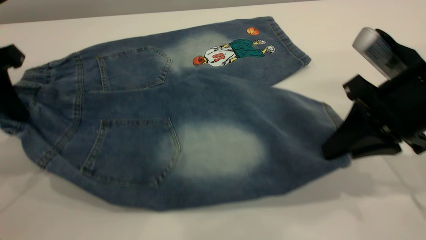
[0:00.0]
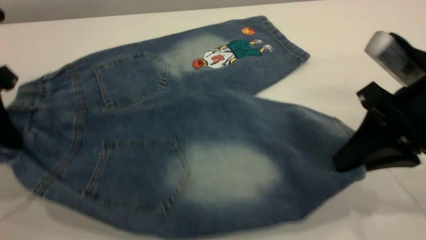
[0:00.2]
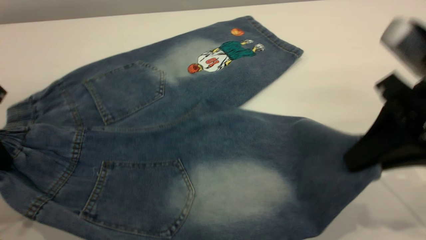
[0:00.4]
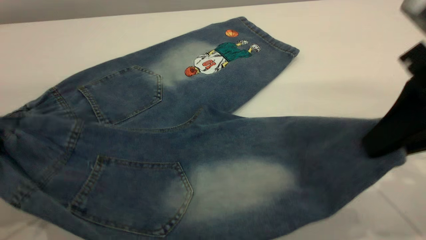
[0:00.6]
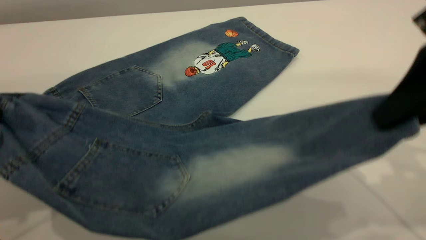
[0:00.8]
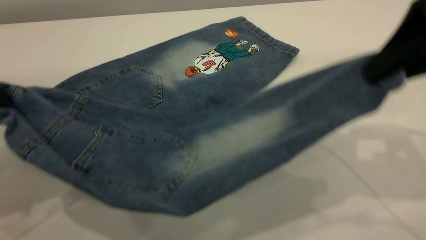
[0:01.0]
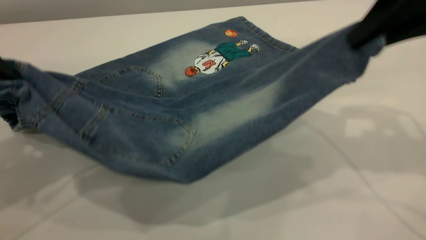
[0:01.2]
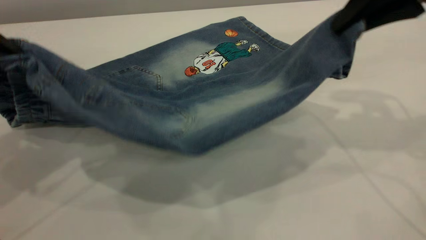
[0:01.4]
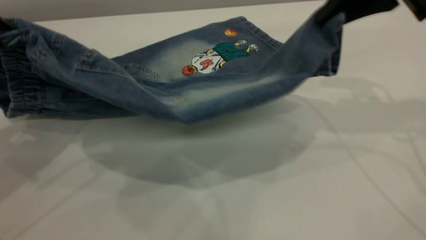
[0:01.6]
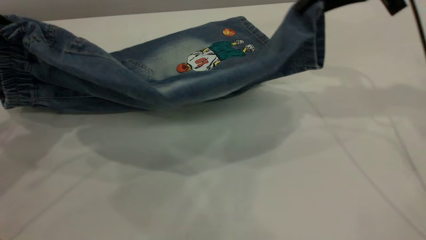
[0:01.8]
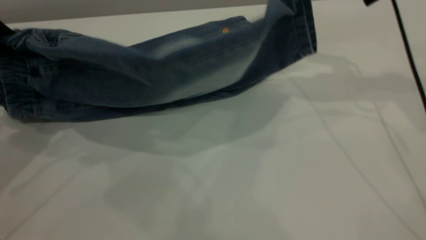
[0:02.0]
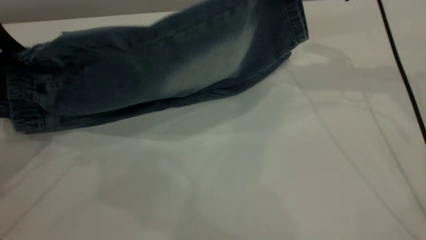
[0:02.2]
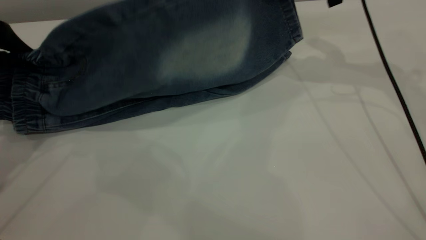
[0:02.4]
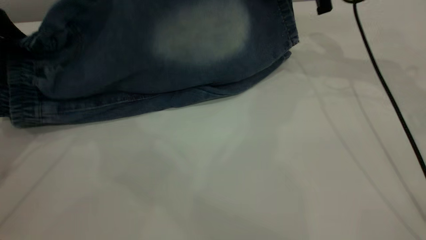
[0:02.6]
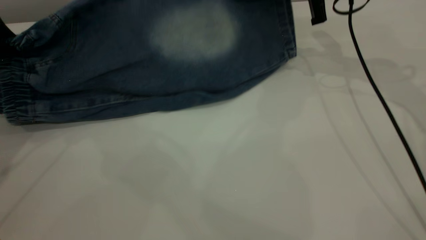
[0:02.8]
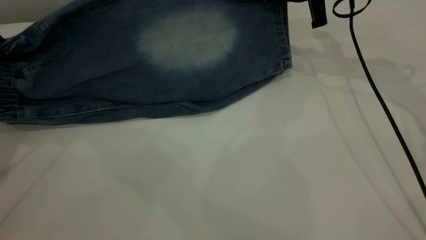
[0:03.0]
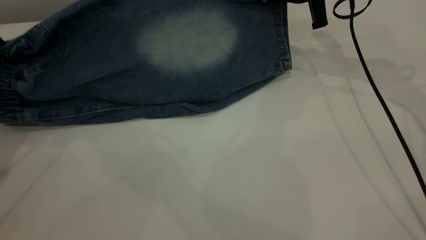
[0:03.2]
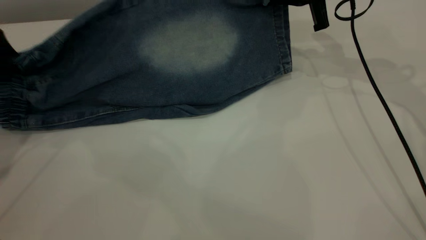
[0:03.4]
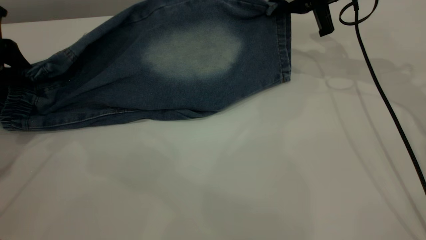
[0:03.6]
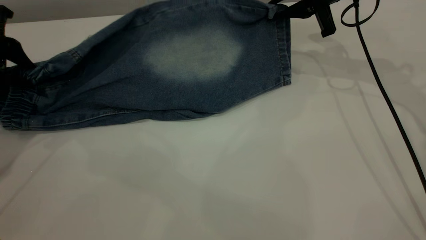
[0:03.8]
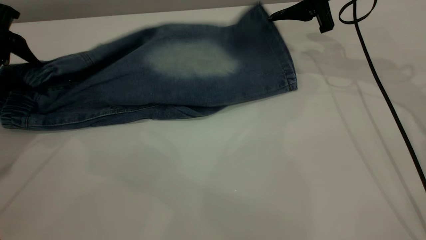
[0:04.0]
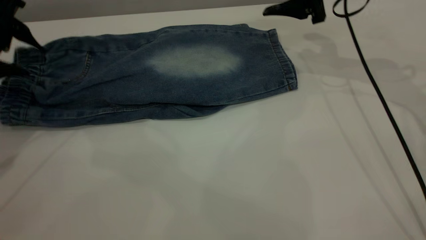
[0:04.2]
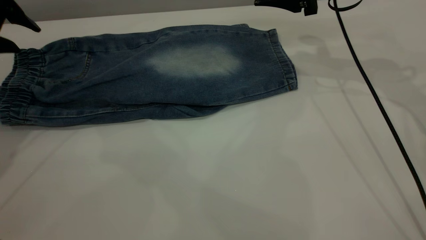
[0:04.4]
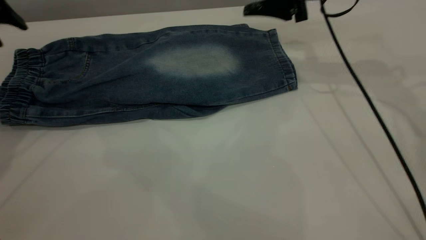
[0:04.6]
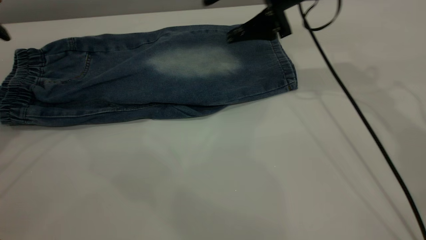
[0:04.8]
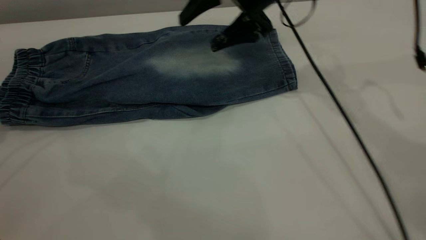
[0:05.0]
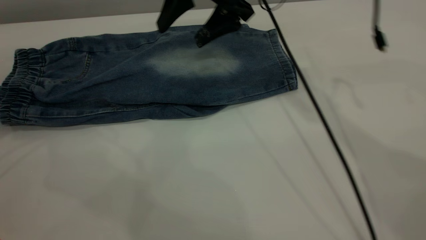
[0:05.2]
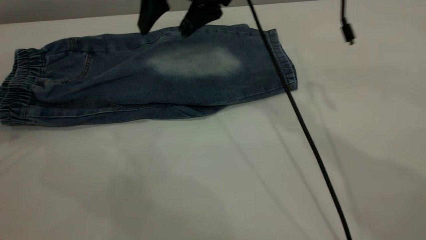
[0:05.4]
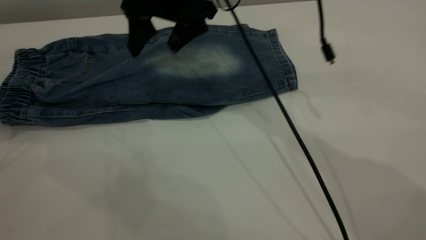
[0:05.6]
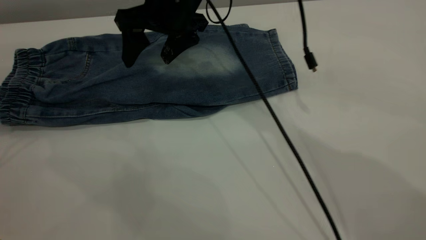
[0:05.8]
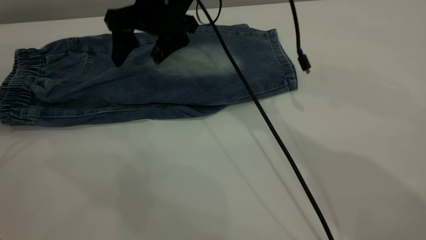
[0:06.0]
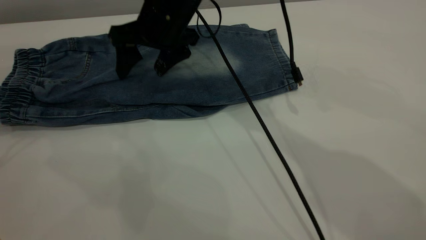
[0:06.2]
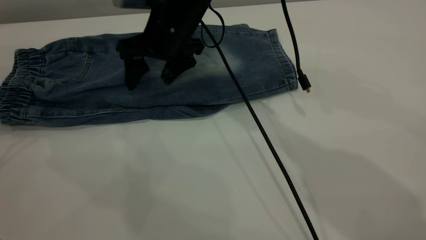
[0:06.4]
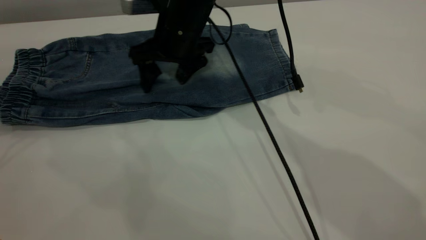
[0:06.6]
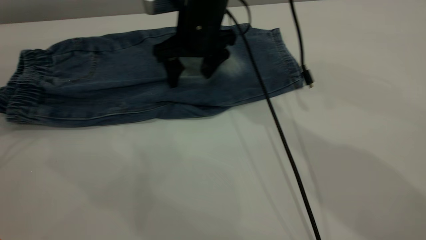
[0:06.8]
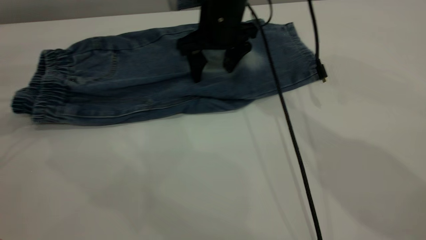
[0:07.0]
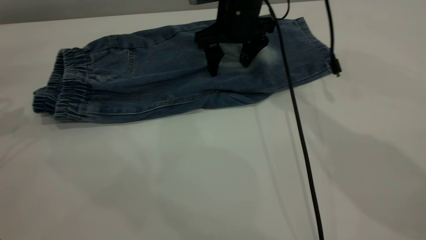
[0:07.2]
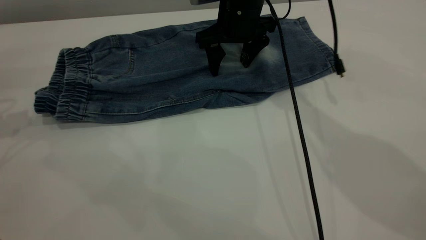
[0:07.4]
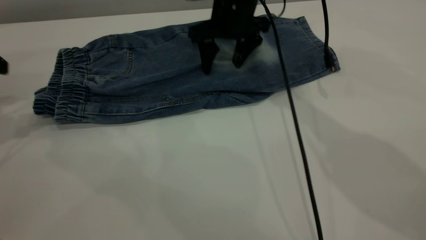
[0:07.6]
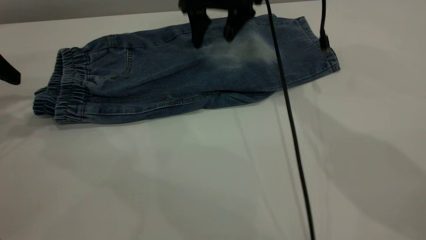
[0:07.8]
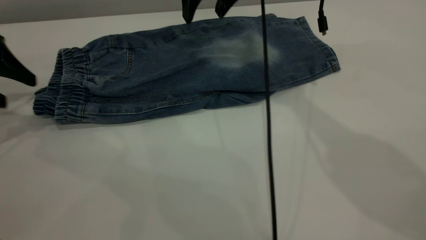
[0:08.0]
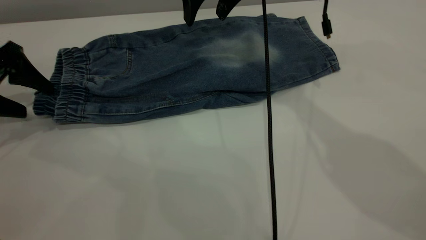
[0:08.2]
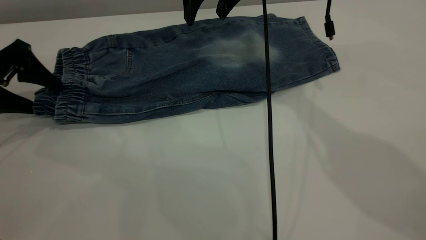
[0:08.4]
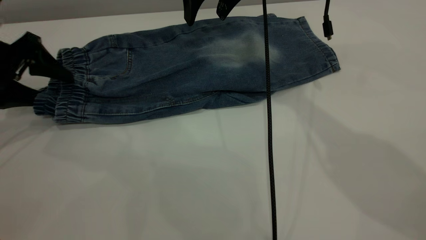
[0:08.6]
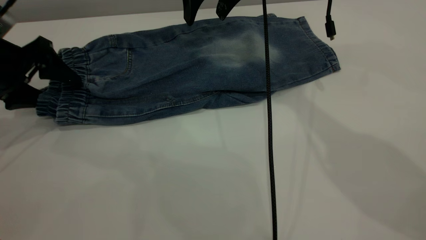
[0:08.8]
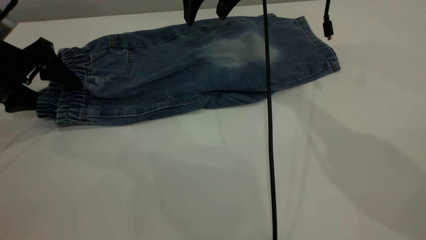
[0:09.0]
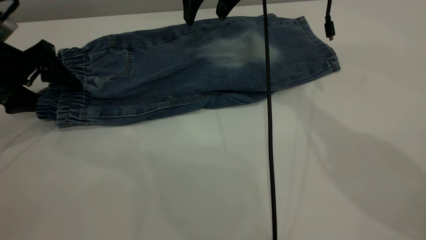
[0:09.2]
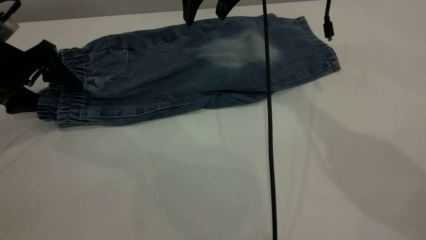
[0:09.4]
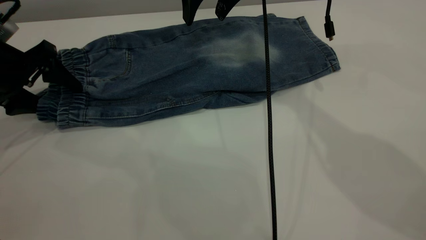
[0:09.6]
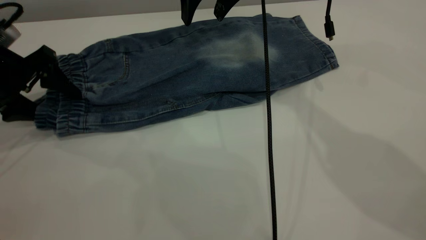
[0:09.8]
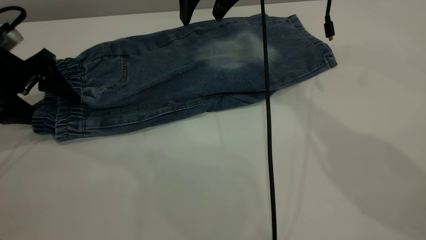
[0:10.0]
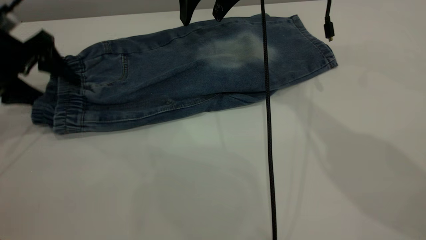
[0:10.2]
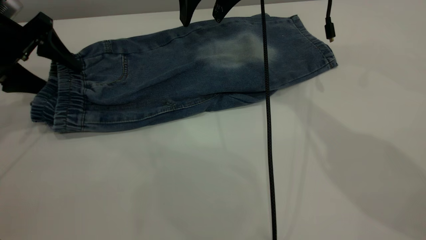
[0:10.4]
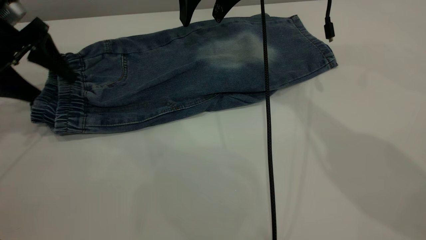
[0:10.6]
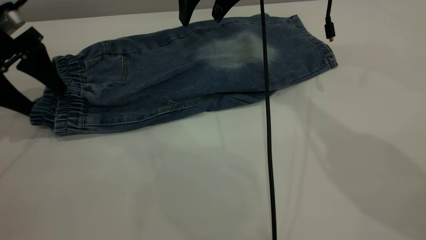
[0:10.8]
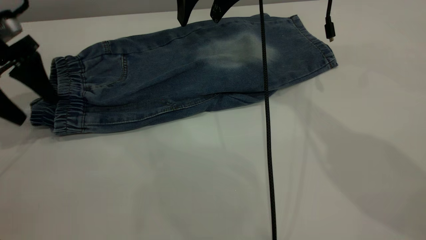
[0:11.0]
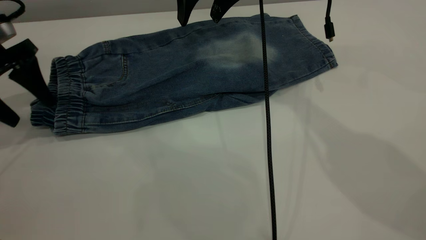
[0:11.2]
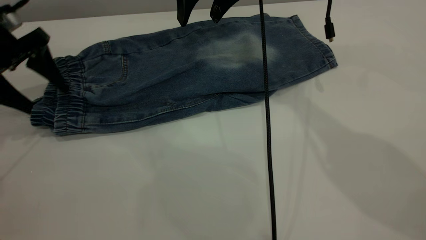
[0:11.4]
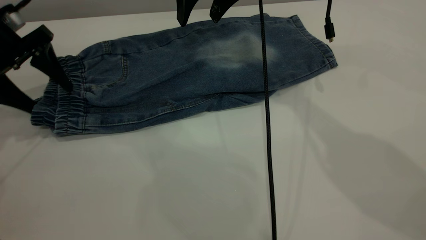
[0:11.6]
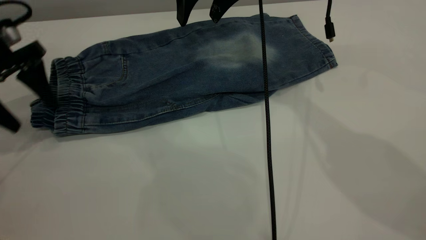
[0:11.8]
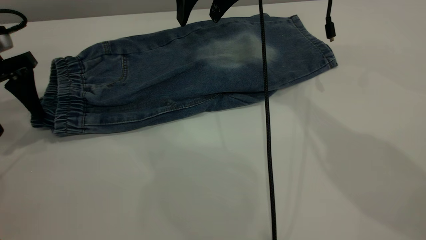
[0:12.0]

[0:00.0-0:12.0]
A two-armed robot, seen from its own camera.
Step, 0:00.0 to 0:04.6: Fold the bottom of the pants upward.
0:00.0 to 0:01.6: The right gripper heads upward and forward, covering approximately 15 cm. The left gripper moves upward, roughly 5 cm.
0:01.6 to 0:03.0: The left gripper heads forward and downward, covering approximately 10 cm. The right gripper heads forward and downward, covering approximately 15 cm.
0:03.0 to 0:04.4: The left gripper opens, while the right gripper opens.
0:04.4 to 0:06.0: The right gripper shifts roughly 25 cm to the left; the left gripper is displaced to the left by roughly 5 cm.
0:06.0 to 0:07.6: The right gripper moves to the right, some 10 cm.
0:07.6 to 0:09.0: The right gripper goes roughly 5 cm upward. The left gripper heads downward and to the right, covering approximately 10 cm.
0:09.0 to 0:10.4: The grippers move only a little.

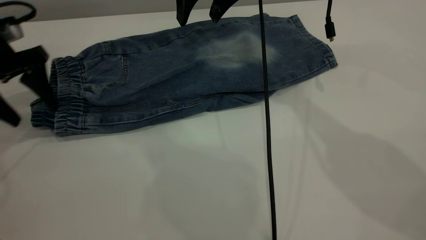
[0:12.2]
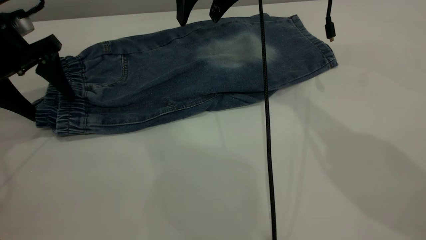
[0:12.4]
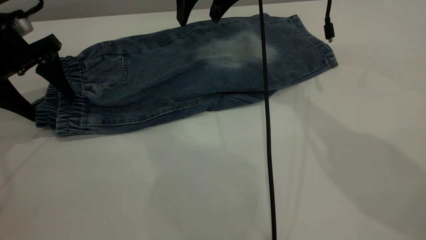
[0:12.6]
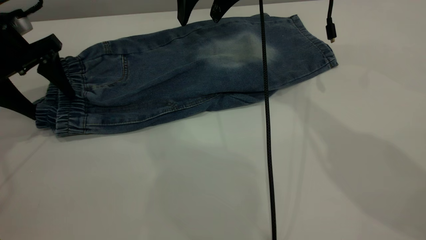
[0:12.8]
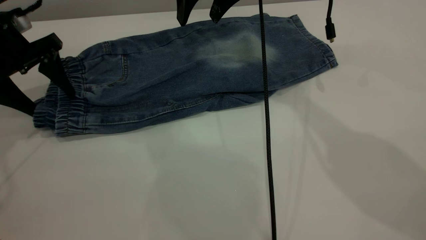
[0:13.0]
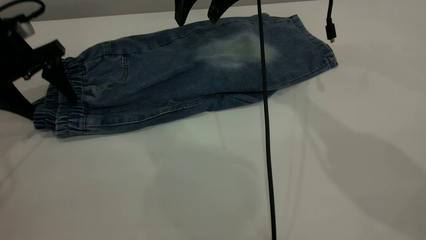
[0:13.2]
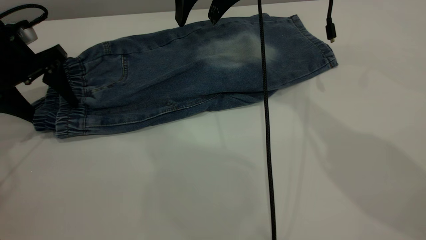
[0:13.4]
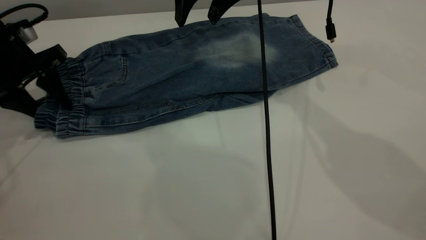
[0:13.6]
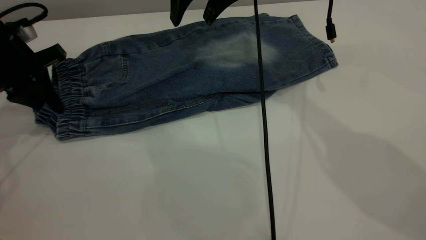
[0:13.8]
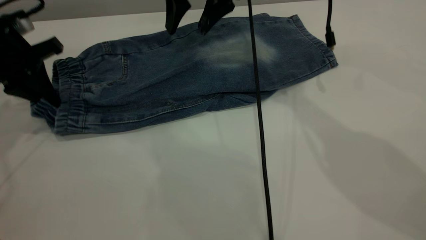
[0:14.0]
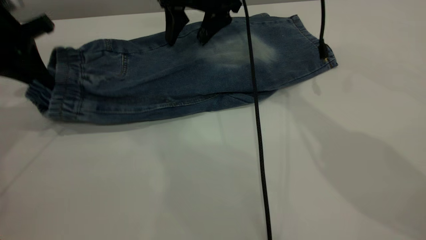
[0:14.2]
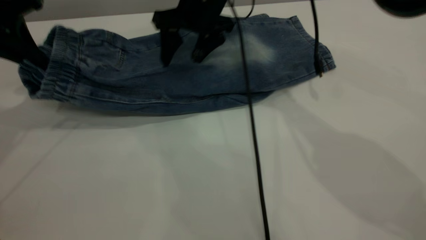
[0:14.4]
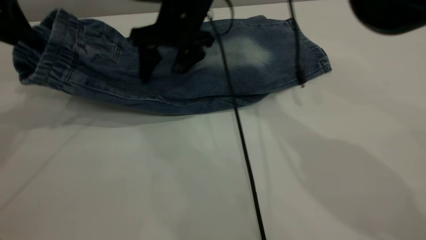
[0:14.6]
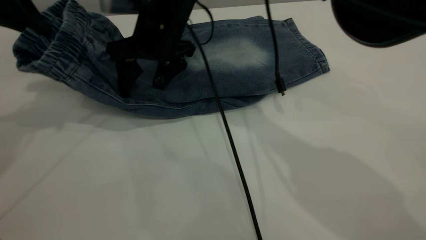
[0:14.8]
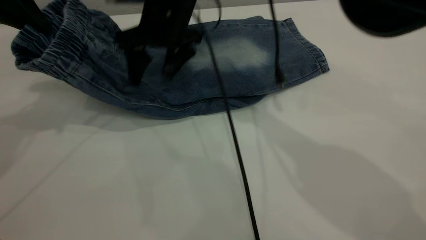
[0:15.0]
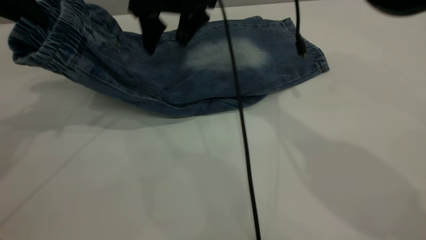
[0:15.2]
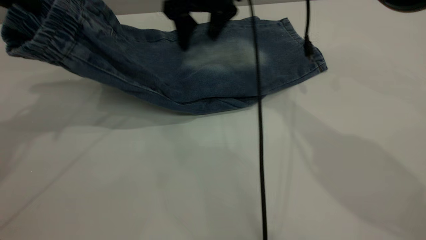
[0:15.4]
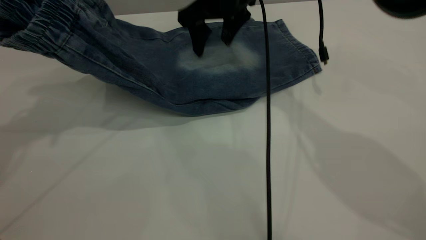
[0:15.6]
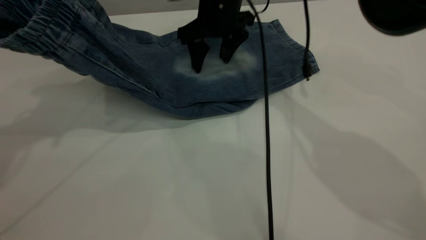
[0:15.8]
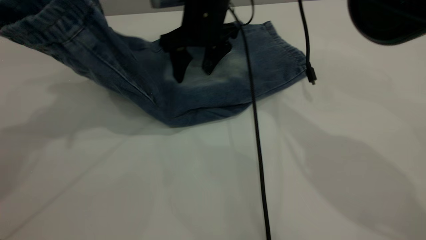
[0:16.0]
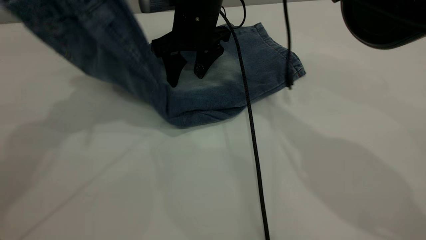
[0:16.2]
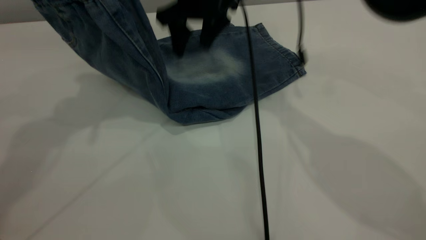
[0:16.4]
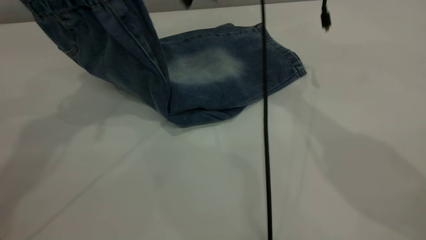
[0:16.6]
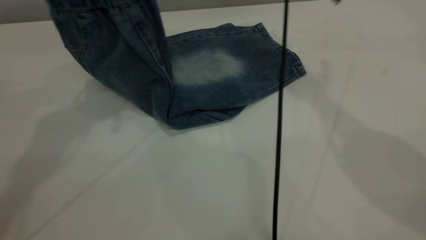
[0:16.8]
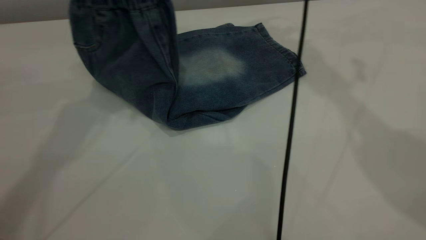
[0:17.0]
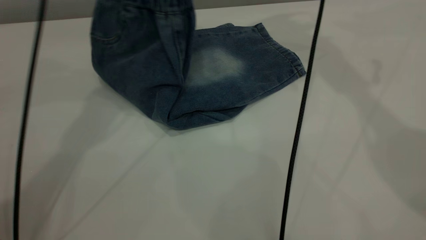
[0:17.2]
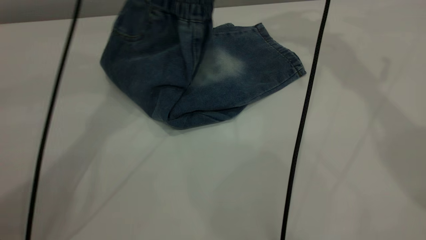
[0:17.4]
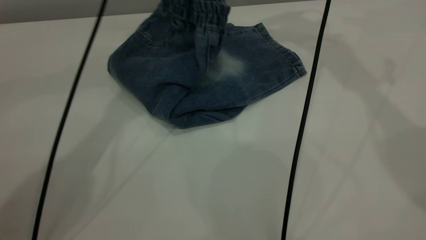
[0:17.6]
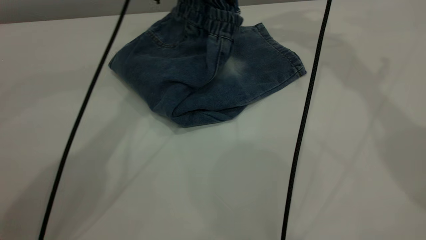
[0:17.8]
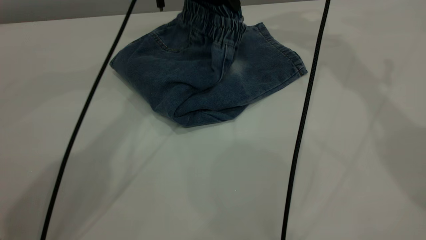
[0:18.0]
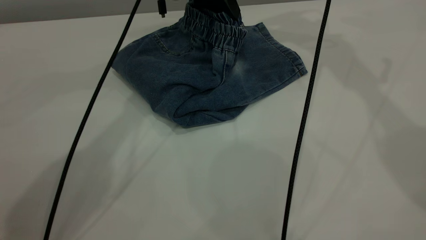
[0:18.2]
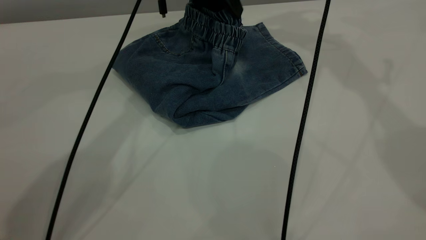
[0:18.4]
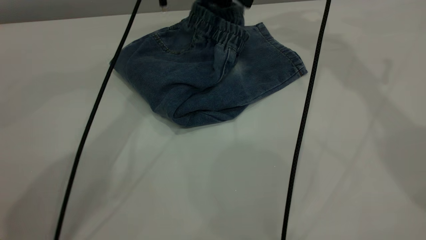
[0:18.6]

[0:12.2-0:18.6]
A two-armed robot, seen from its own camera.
0:12.2 to 0:13.8: The left gripper closes its fingers.
0:13.8 to 0:15.4: The left gripper goes approximately 15 cm upward. The right gripper reaches roughly 10 cm to the left, then returns.
0:15.4 to 0:17.0: The right gripper travels upward and to the right by some 20 cm, while the left gripper is displaced to the right and forward by some 15 cm.
0:17.0 to 0:18.6: The left gripper heads to the right, downward and forward, covering about 15 cm, and opens.
